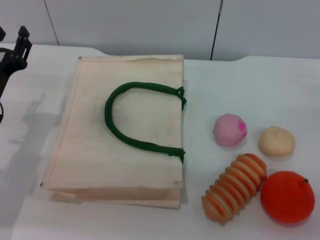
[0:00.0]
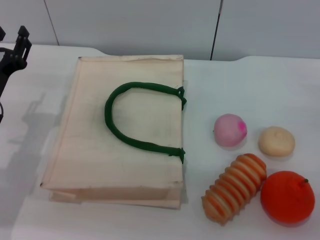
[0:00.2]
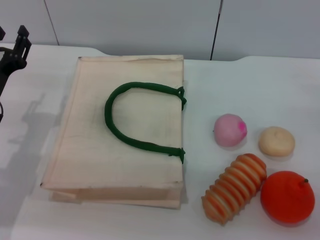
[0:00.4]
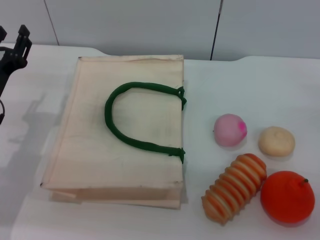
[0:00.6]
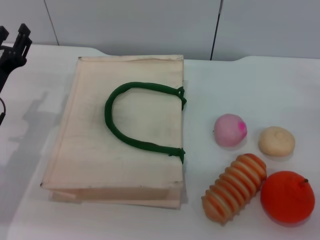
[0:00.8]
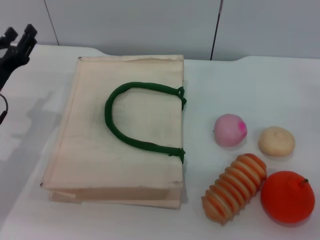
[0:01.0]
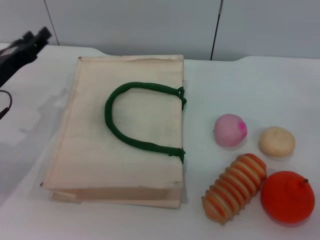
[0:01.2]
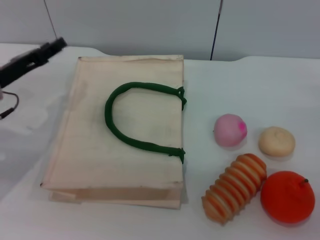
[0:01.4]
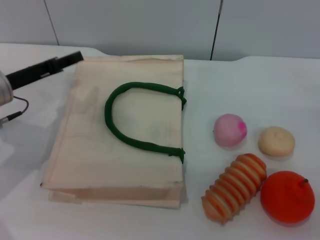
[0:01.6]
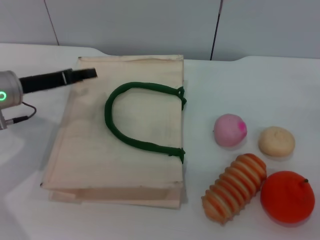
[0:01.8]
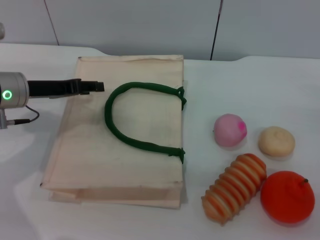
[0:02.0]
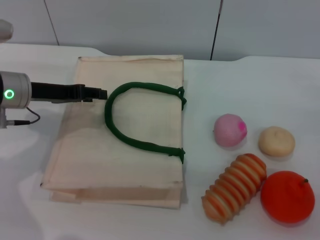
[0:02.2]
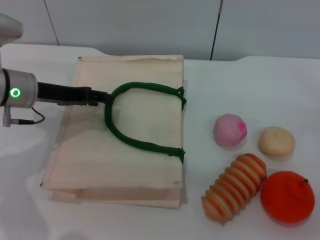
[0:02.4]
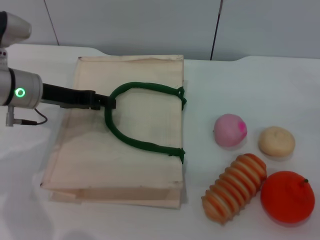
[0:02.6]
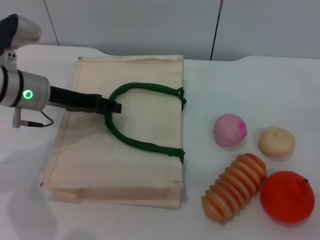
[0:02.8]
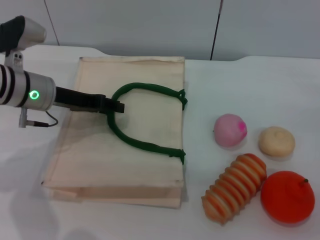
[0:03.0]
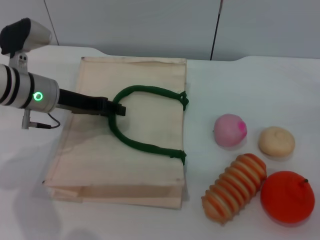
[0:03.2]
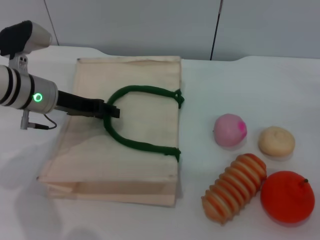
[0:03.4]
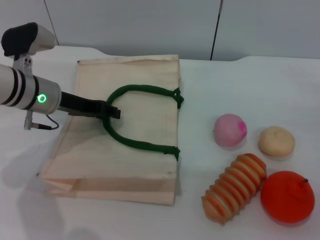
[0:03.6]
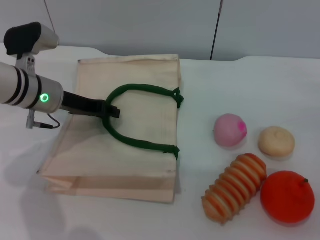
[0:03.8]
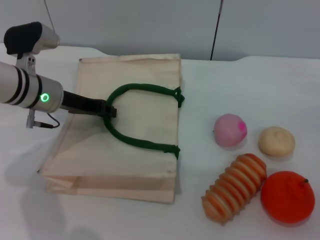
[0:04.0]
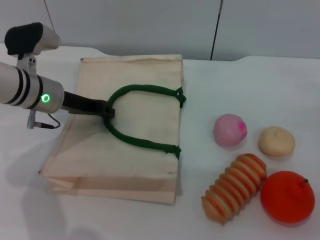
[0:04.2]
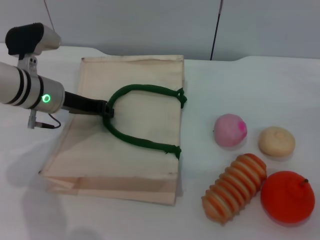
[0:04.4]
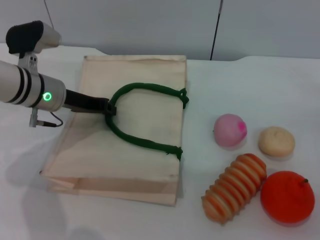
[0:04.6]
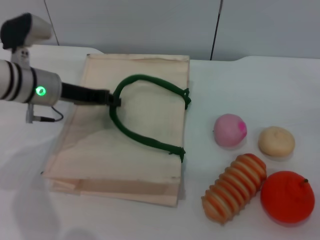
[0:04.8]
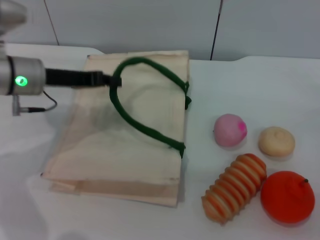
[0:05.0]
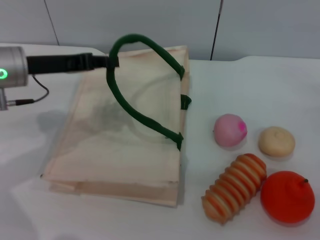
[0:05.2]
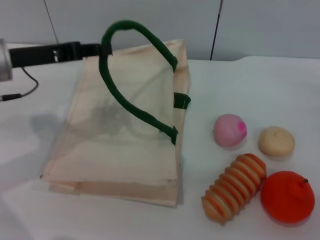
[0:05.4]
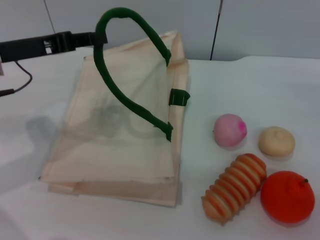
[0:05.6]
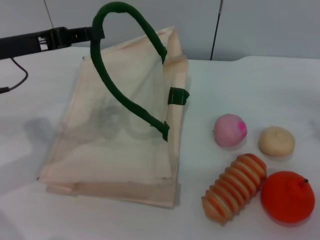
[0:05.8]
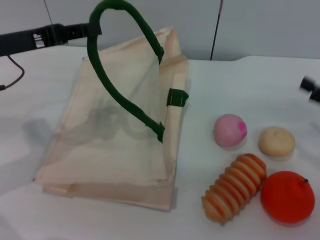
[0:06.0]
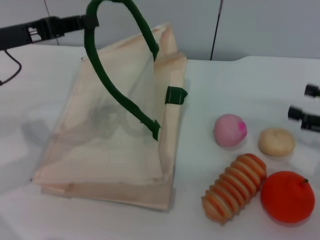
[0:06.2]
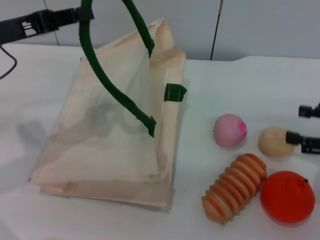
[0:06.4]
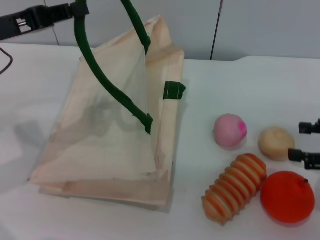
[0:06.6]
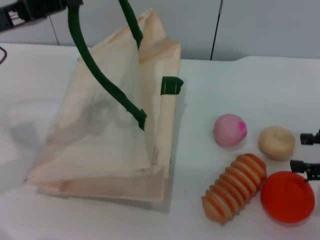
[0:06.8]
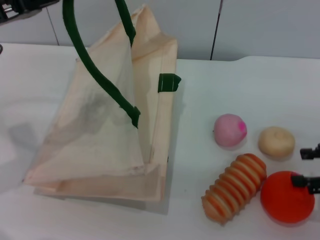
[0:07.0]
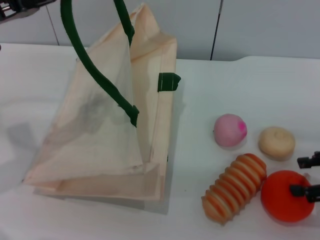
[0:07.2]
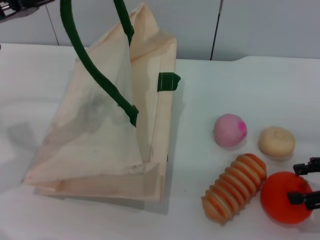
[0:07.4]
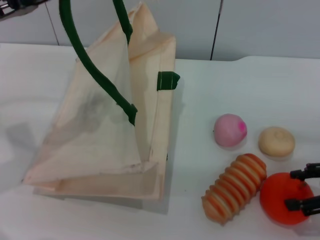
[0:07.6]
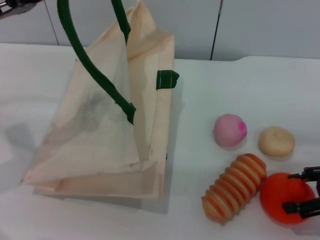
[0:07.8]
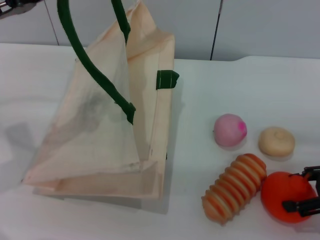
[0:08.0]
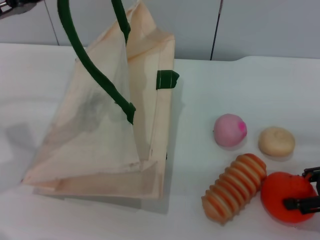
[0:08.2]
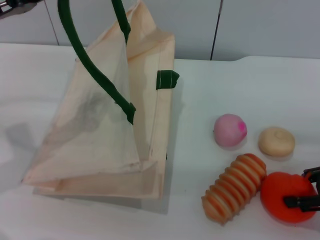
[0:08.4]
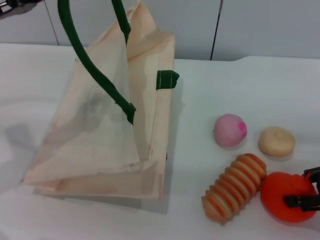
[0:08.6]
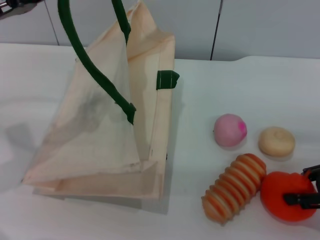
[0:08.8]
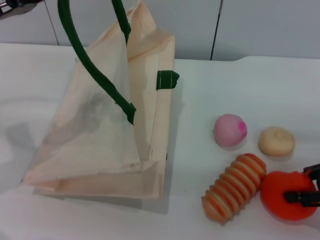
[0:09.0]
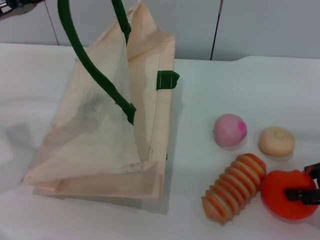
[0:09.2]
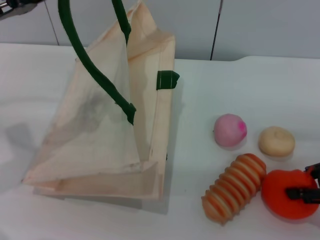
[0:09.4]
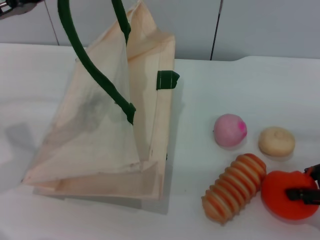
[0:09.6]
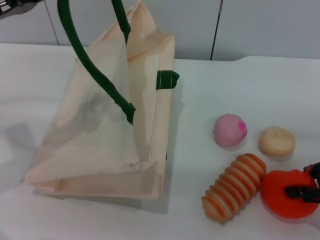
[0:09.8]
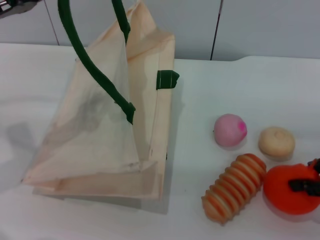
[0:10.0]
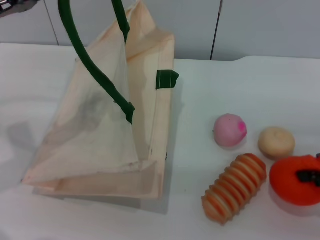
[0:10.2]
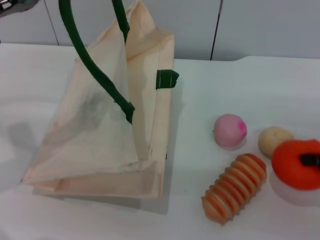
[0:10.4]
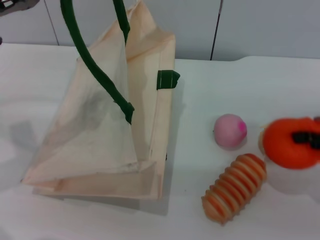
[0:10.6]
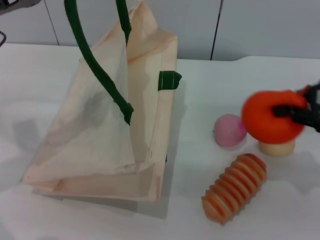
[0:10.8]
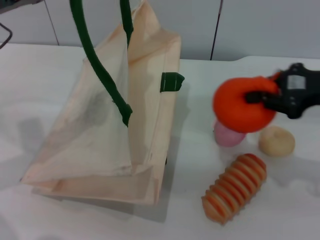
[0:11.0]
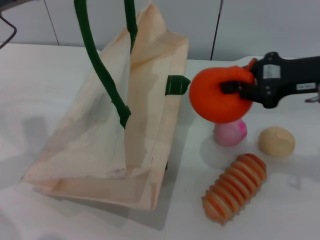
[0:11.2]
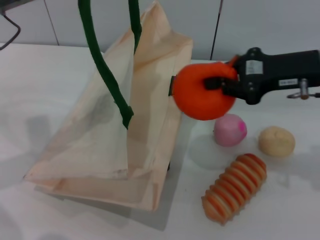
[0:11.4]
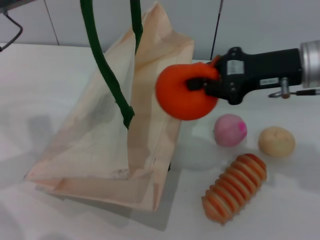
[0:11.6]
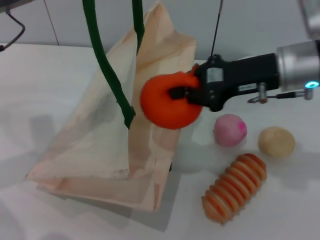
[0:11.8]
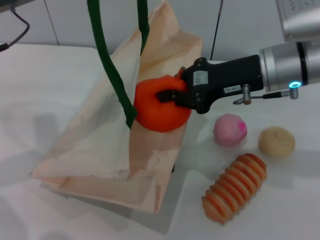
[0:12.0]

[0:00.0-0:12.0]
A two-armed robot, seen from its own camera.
Task of the whole recording: pick up the orange from the table and place it in the white handbag.
Step, 0:00.0 to 0:05.8: Lift the woven bag with the left gripper to open it.
Step, 0:06.0 to 0:10.6: Pick up the orange with the right gripper.
0:00.0 to 0:01.6: The left gripper ends up roughly 5 cm from where it was.
0:01.6 to 0:03.0: The left gripper goes some 5 cm to the right.
0:03.0 to 0:04.4: The left gripper closes its fingers.
0:04.4 to 0:06.0: The left gripper is displaced upward, to the left and backward by approximately 10 cm. Meanwhile the right gripper changes place by roughly 5 cm.
0:07.6 to 0:09.0: The right gripper closes its fingers.
0:09.0 to 0:10.4: There are only small adjustments of the grippers.
0:10.4 to 0:12.0: The right gripper moves to the left and forward, roughly 20 cm.

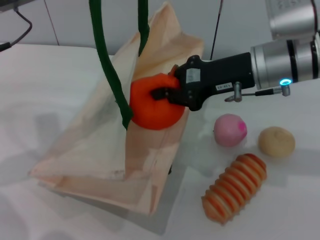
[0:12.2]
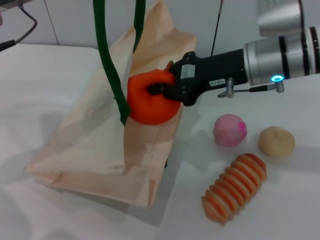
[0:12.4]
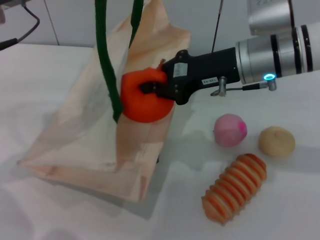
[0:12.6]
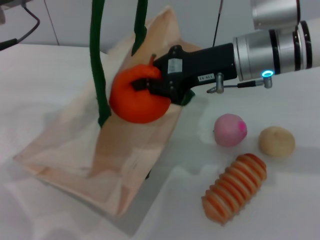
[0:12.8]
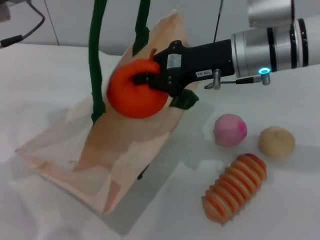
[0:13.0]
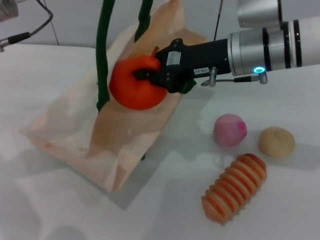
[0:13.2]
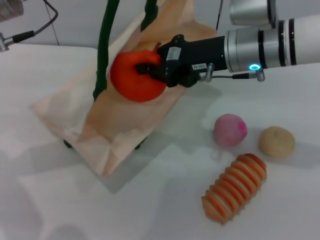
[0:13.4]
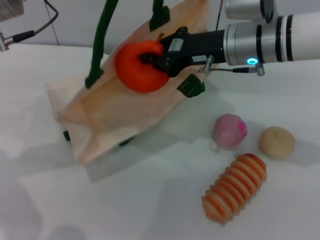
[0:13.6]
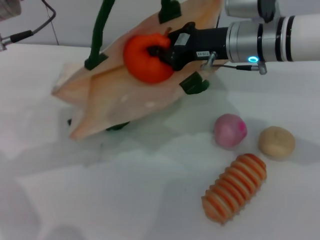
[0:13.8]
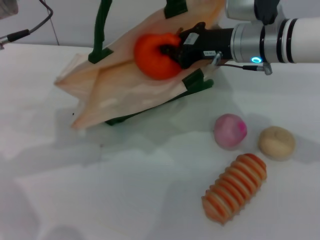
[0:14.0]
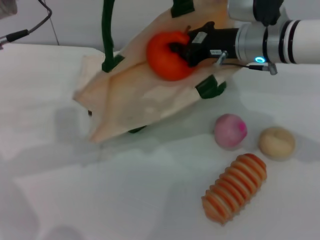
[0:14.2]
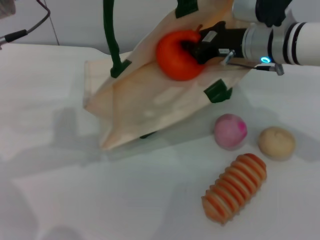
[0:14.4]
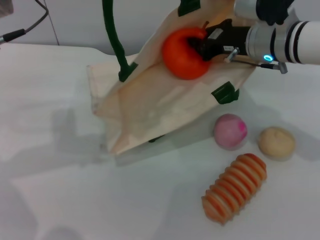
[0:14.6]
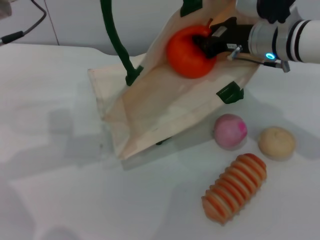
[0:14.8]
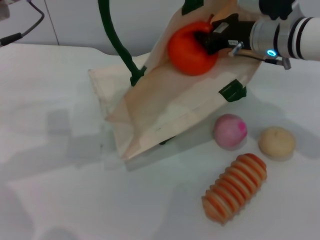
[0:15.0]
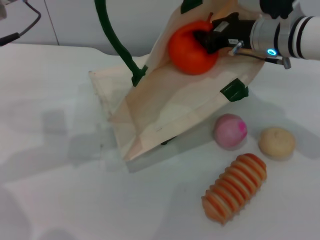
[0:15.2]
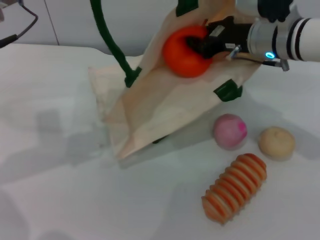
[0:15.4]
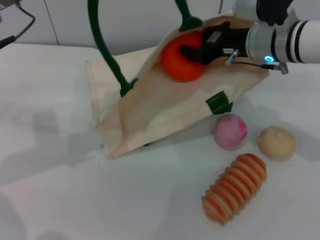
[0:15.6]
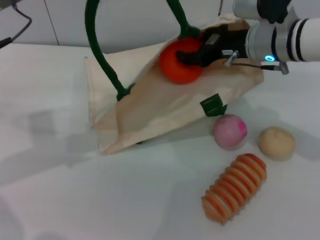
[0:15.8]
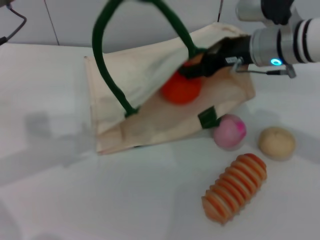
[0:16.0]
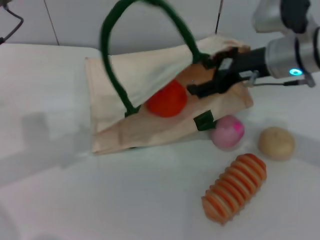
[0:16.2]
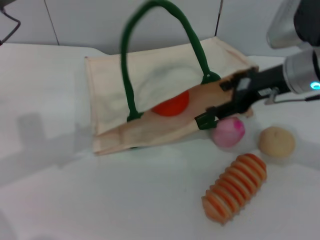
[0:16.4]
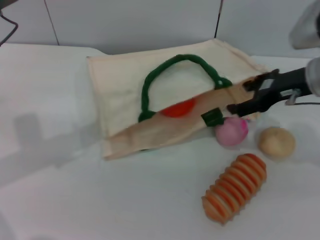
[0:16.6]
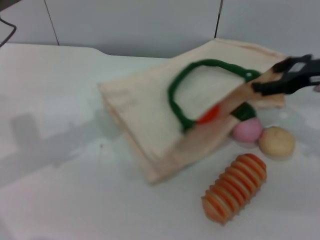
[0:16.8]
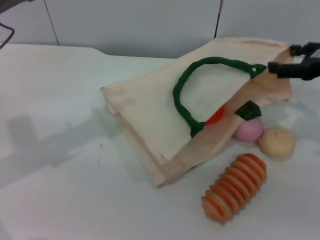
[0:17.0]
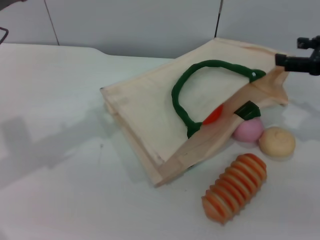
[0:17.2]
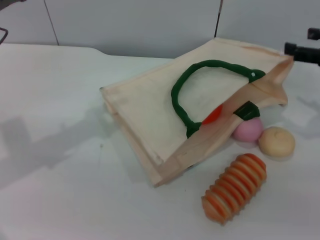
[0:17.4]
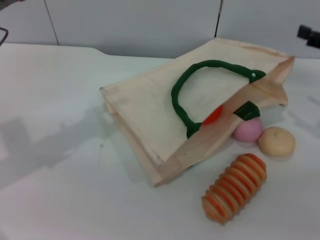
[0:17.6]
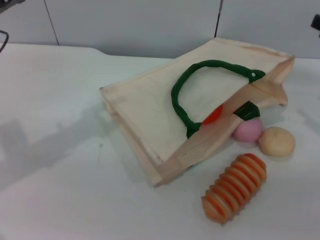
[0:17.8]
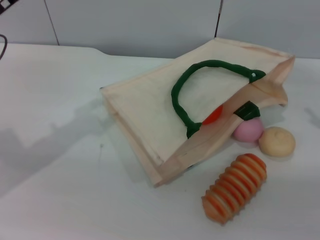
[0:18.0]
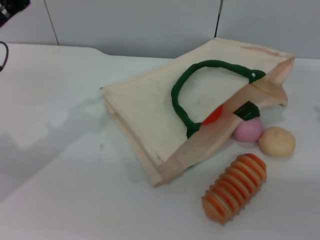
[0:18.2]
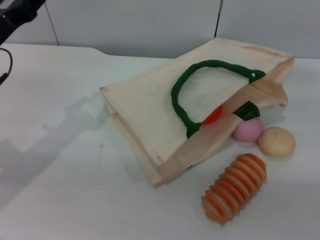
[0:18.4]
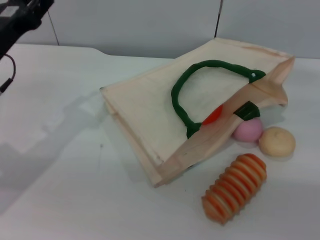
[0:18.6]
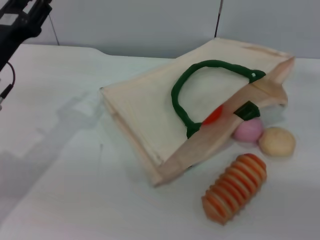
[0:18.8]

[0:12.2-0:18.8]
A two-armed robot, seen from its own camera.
Task of the whole recording: pick up the orange from the table and place it in the white handbag.
Step, 0:12.2 to 0:15.4: Place the orange into the woven bag with the right gripper.
Step, 0:15.6 to 0:17.6: Lower the woven bag with the left gripper to close it.
0:15.4 to 0:17.2: The right gripper shifts approximately 20 cm to the right and backward, and opens up. Meanwhile the left gripper opens its fingers.
0:17.2 to 0:18.8: The left gripper goes roughly 10 cm downward. Meanwhile the right gripper moves downward and backward, roughly 10 cm.

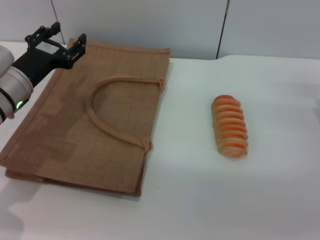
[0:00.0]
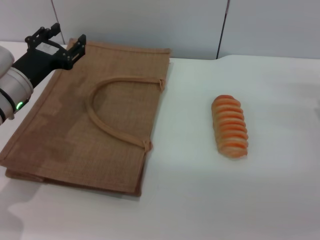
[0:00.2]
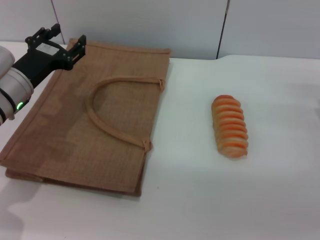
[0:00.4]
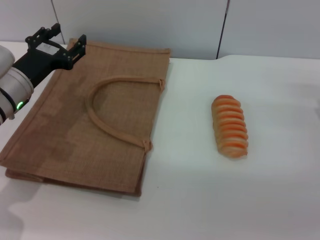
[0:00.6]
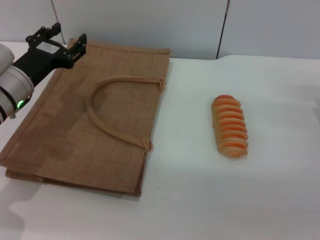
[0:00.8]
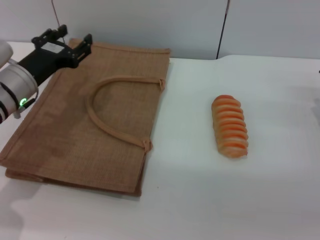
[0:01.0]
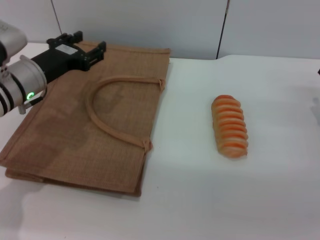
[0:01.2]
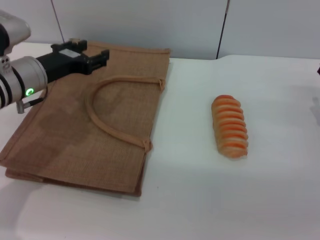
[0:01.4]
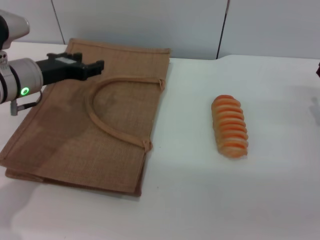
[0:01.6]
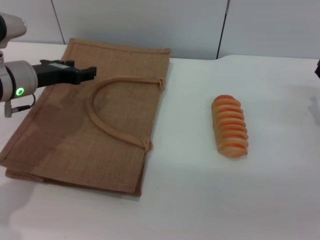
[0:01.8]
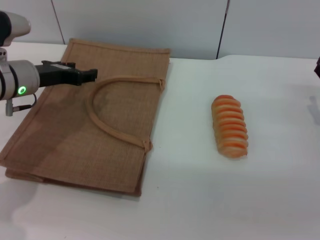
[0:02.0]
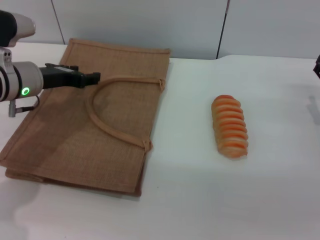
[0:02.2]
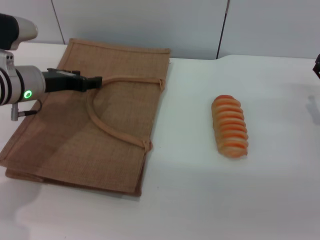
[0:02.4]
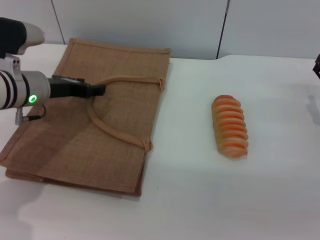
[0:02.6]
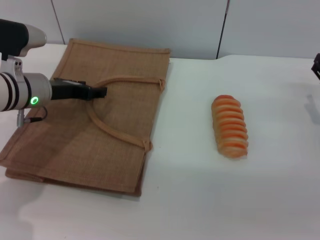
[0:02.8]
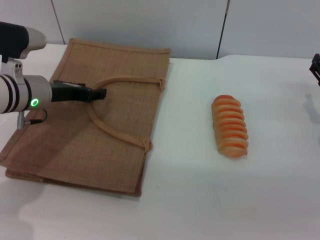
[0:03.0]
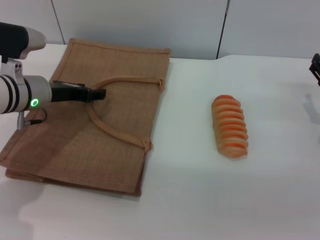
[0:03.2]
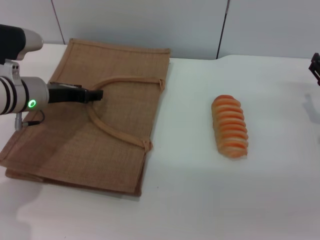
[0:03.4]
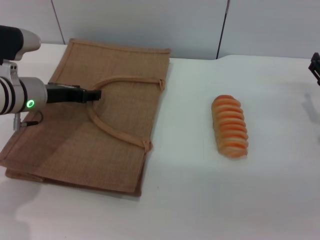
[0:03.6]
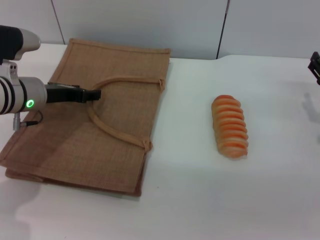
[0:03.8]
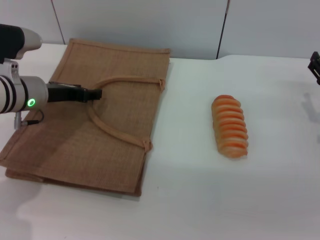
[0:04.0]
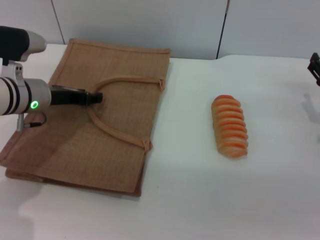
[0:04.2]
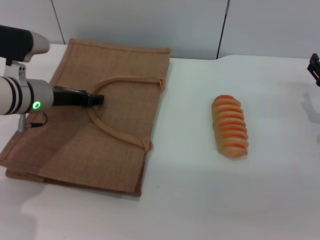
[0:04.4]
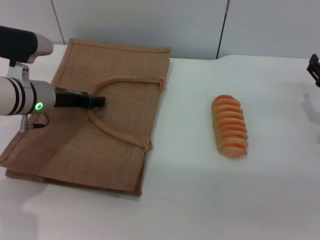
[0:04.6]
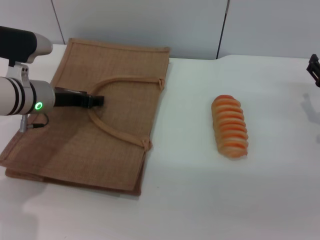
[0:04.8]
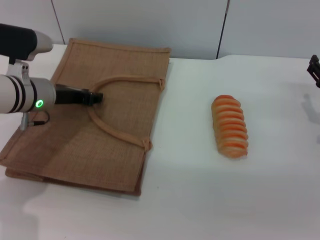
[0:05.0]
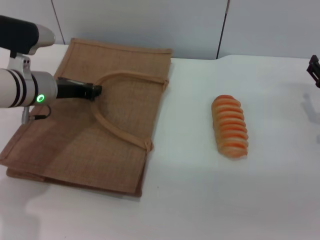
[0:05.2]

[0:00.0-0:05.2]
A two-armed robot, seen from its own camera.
Task of the whole recording: pick up the bread from the table and place it in the brown handbag.
0:01.8 to 0:03.4: The grippers make only small movements.
0:03.4 to 0:05.2: The left gripper closes up.
